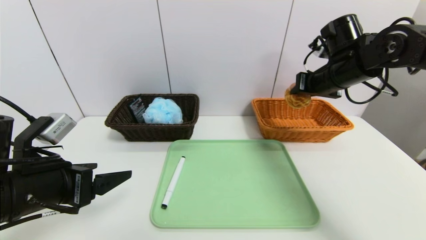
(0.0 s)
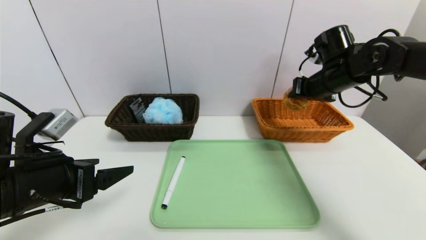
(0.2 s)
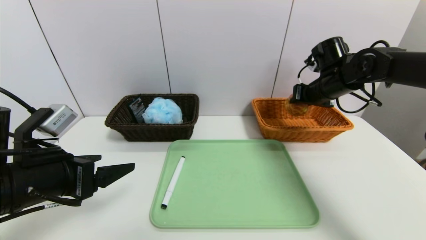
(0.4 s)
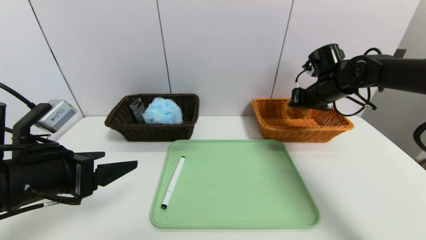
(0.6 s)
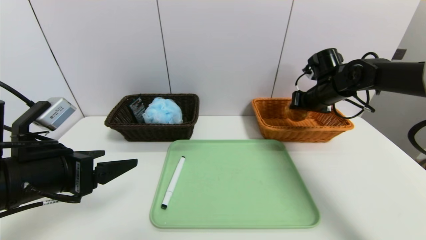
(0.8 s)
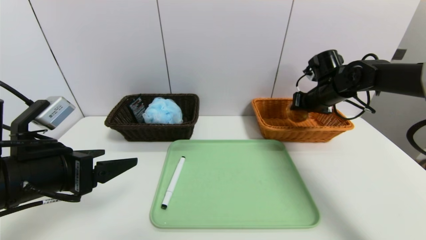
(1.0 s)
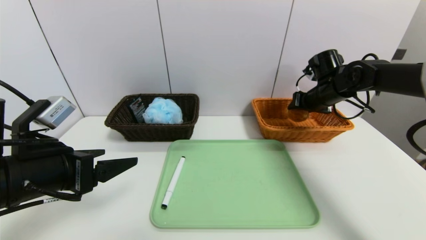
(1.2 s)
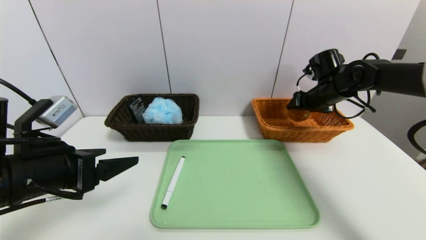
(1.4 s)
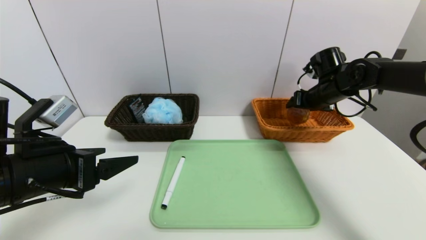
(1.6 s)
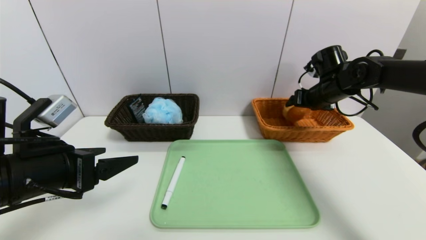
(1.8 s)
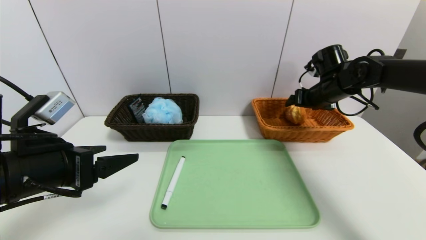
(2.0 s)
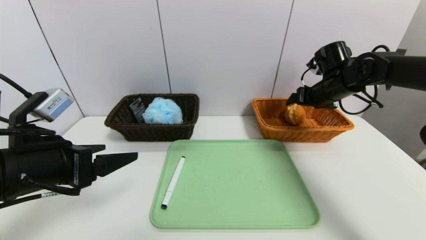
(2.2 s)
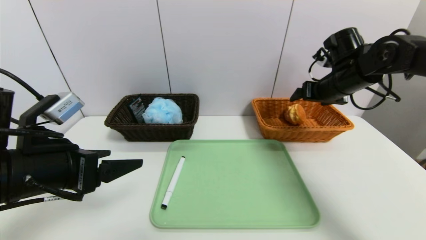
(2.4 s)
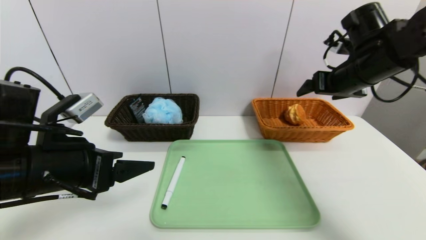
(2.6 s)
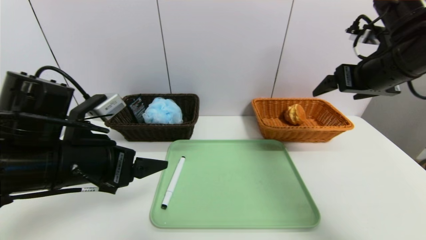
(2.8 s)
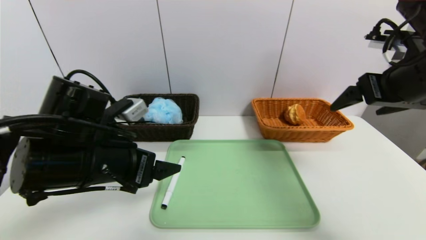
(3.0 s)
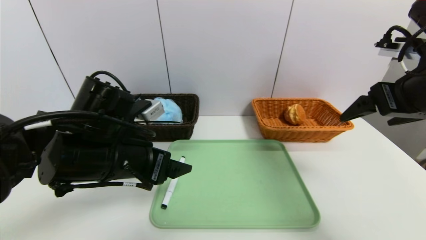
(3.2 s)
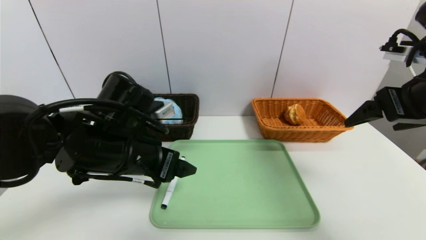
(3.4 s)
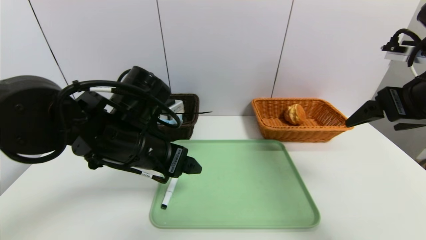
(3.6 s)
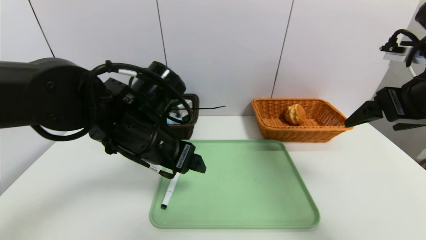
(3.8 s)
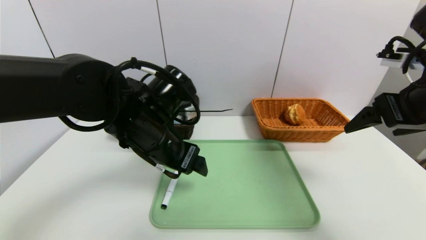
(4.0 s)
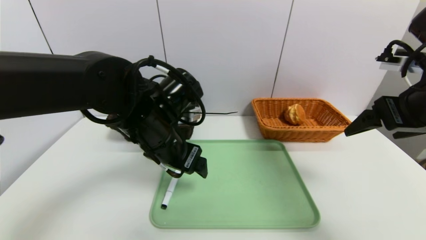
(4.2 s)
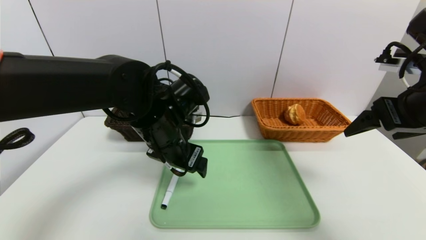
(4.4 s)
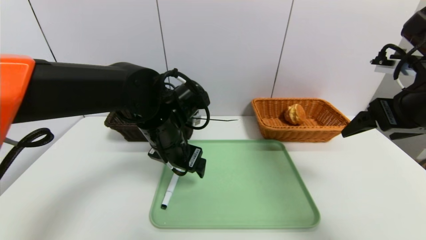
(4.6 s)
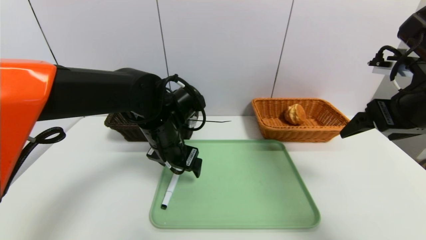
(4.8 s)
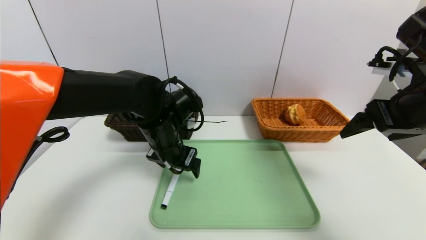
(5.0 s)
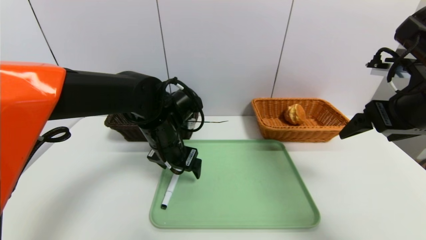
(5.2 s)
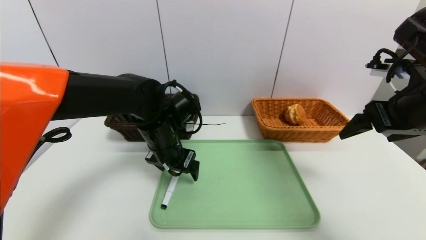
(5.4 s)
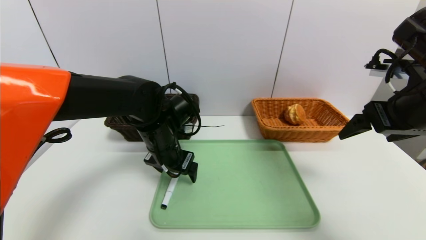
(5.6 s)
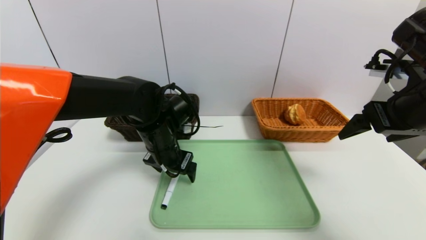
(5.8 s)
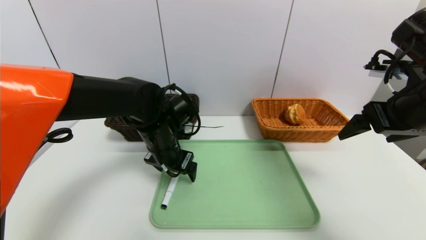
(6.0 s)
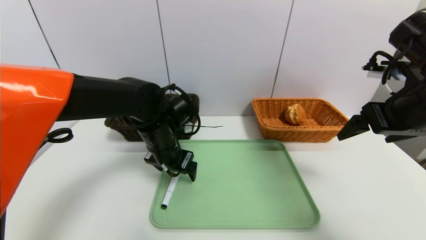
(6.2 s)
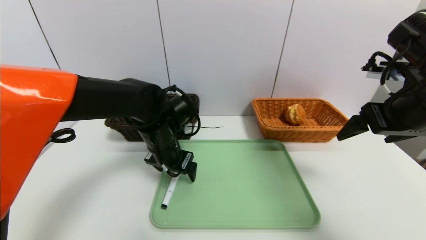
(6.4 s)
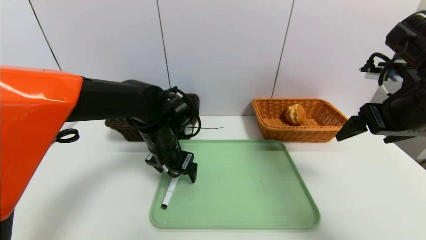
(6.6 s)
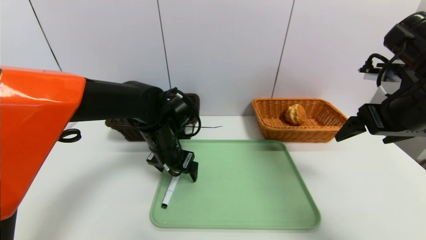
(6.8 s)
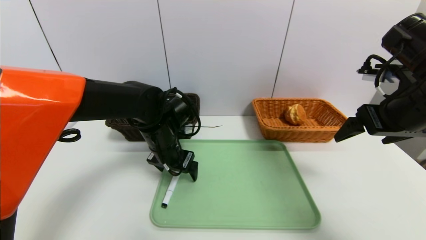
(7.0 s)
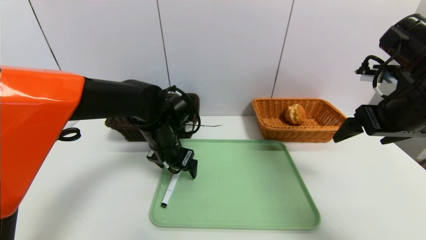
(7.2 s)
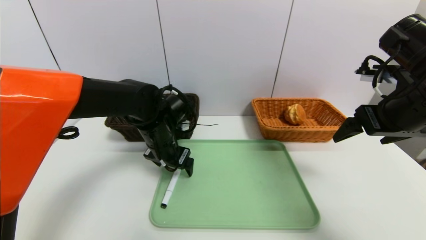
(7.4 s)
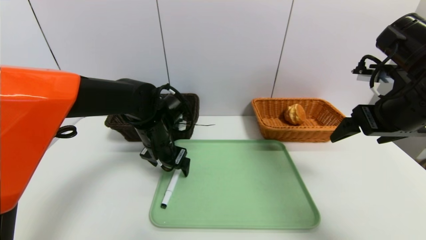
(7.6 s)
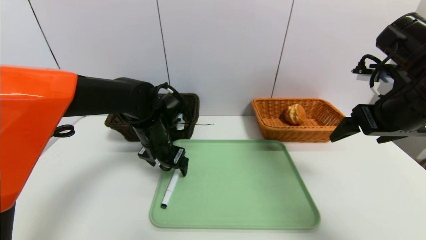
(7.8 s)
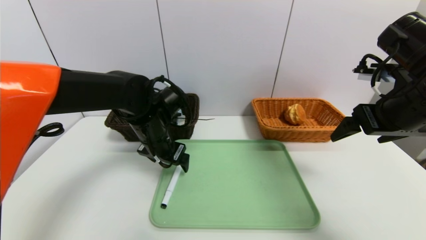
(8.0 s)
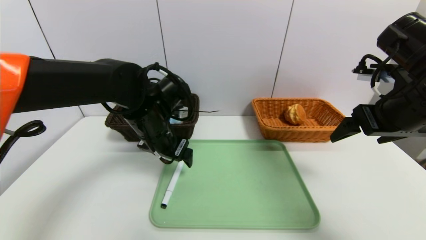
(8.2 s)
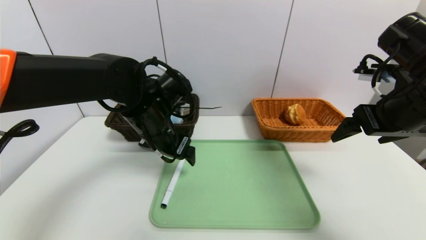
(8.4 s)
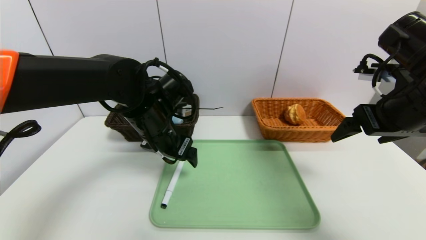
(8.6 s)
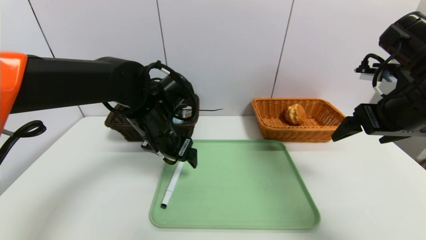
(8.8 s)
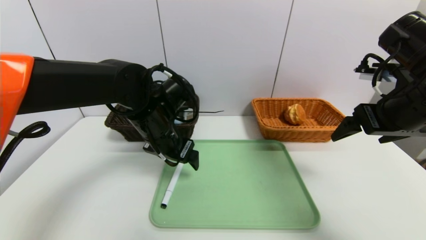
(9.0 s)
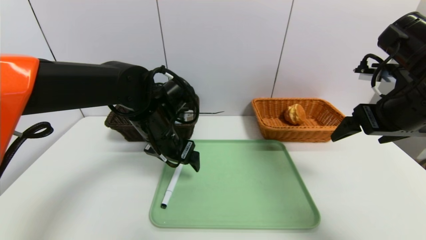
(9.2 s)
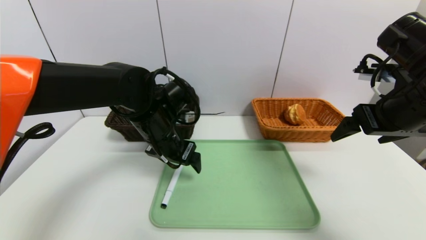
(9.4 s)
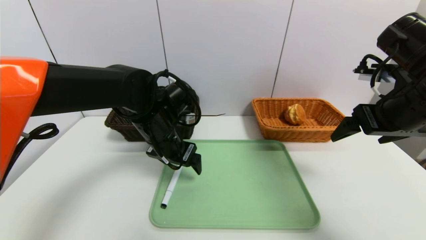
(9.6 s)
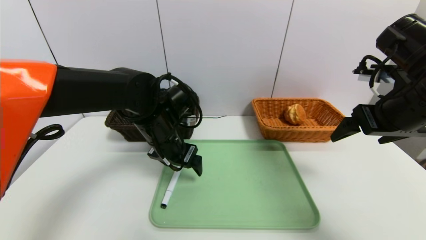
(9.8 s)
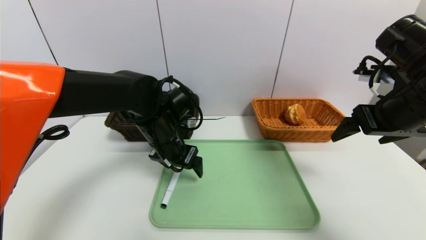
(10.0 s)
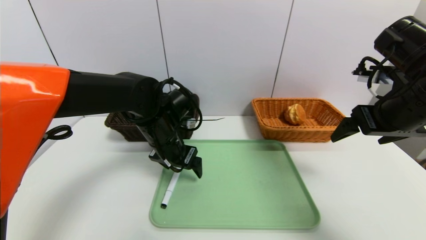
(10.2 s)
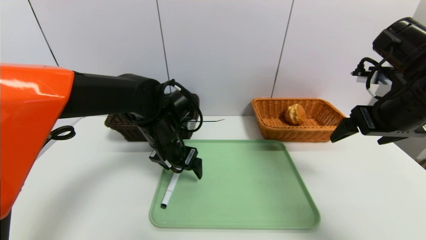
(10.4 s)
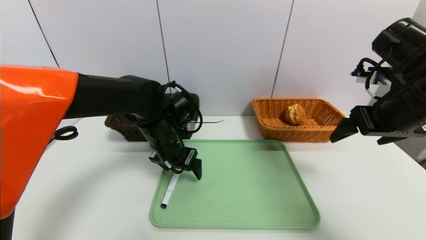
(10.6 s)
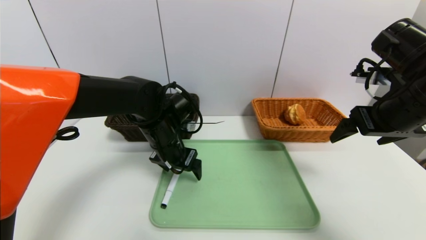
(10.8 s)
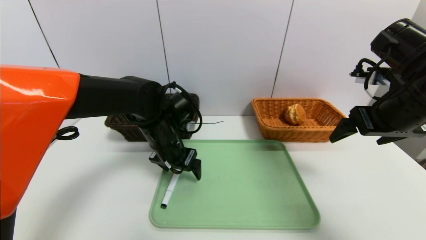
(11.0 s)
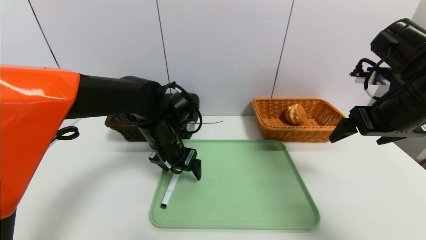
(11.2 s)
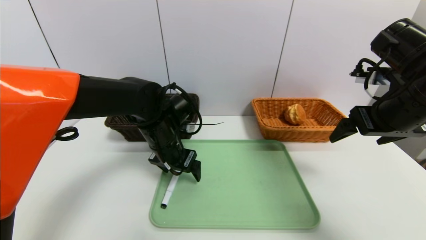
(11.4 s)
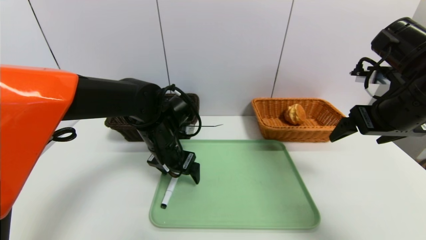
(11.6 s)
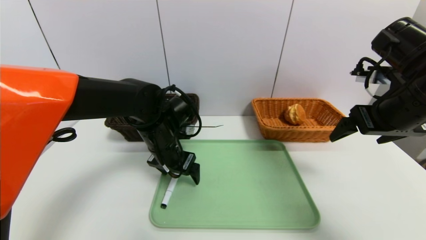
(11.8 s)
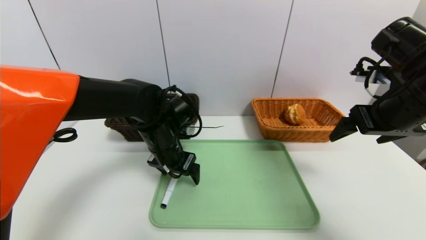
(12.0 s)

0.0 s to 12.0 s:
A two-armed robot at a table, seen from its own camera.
Task of the whole recording: place the food in the right basket with the right gripper, and place the non food items in the left basket with the left gripper.
0.0 to 1.6 s: The right gripper heads downward and forward, covering some 10 cm, and opens up.
1.6 to 3.0 s: The right gripper heads backward and upward, covering about 25 cm; the left gripper travels to the right by approximately 5 cm.
3.0 to 4.4 s: The left gripper shifts approximately 10 cm to the right and forward.
4.4 to 6.0 s: The left gripper ends up roughly 5 cm from where it was.
6.0 to 7.6 s: The grippers stay close to where they were, moving slightly.
7.6 to 9.0 s: The left gripper moves about 5 cm.
9.0 to 10.4 s: There are only small adjustments of the grippers.
10.4 to 12.0 s: The two grippers keep their place.

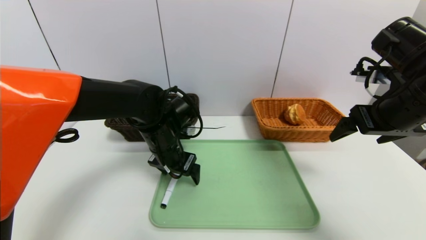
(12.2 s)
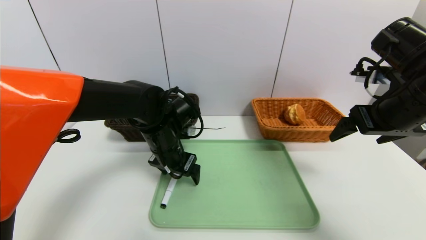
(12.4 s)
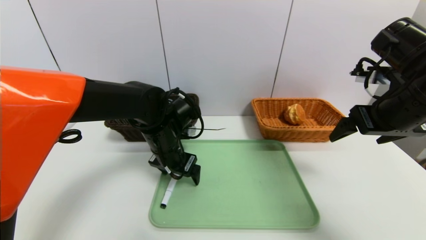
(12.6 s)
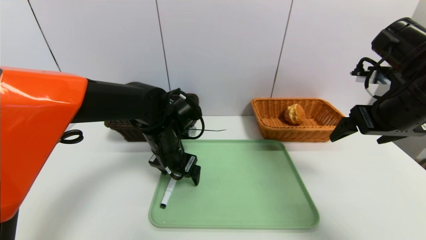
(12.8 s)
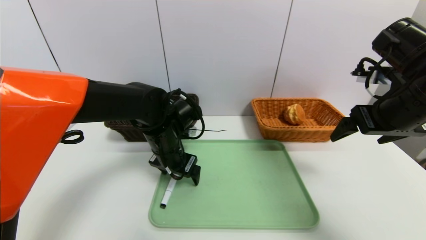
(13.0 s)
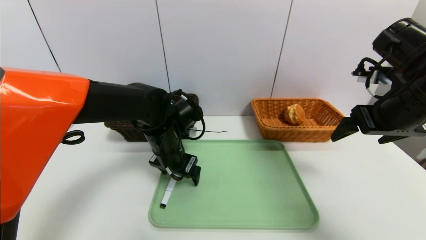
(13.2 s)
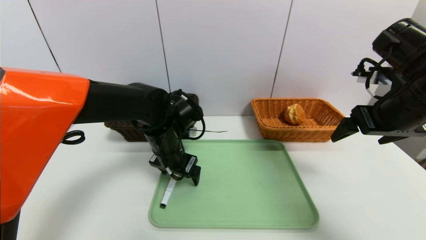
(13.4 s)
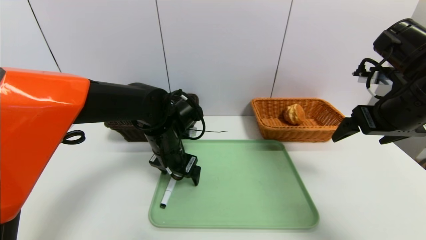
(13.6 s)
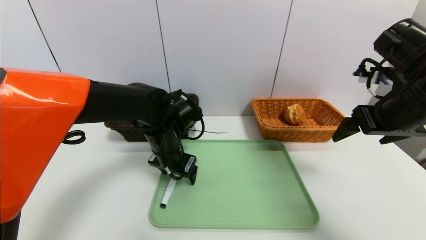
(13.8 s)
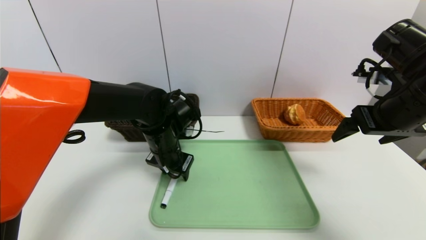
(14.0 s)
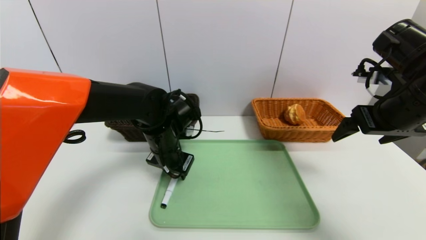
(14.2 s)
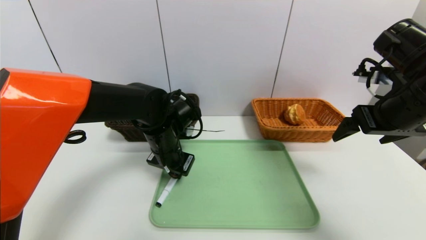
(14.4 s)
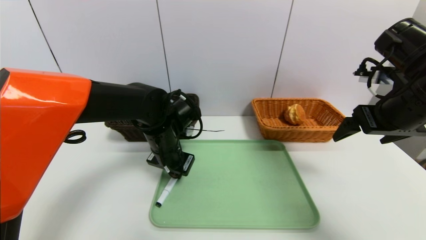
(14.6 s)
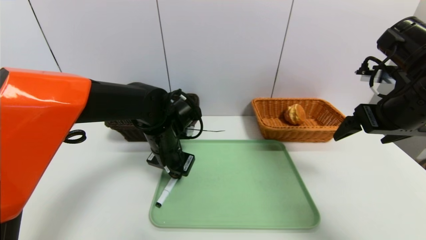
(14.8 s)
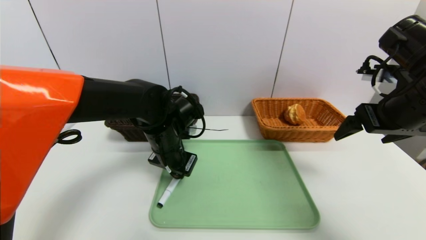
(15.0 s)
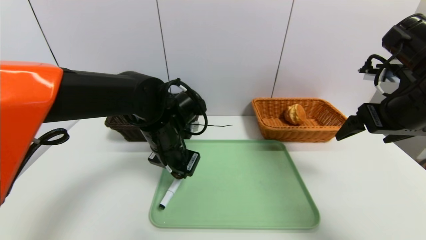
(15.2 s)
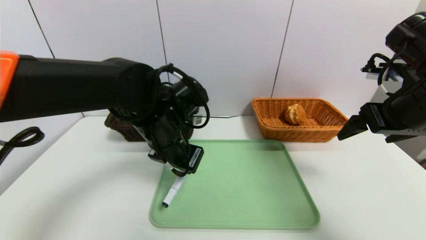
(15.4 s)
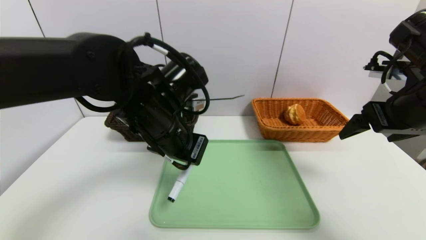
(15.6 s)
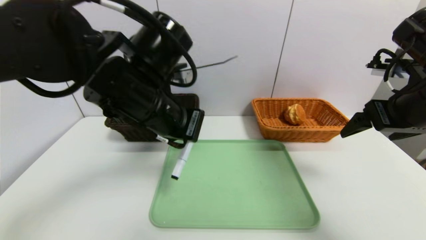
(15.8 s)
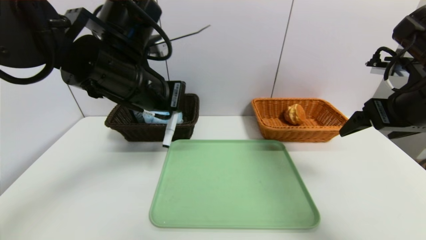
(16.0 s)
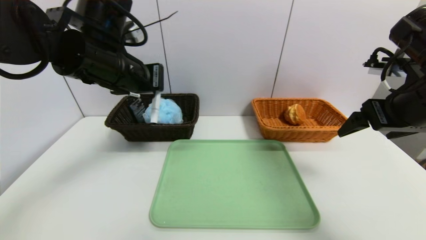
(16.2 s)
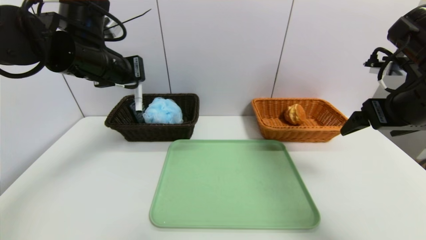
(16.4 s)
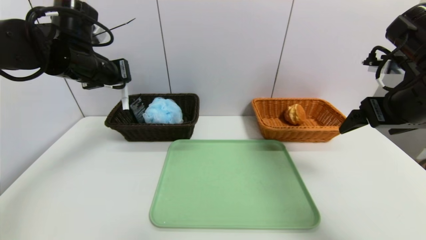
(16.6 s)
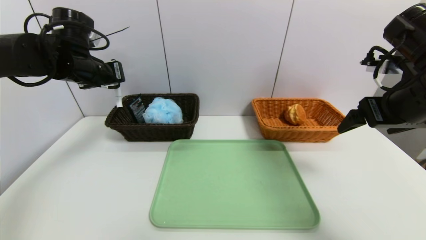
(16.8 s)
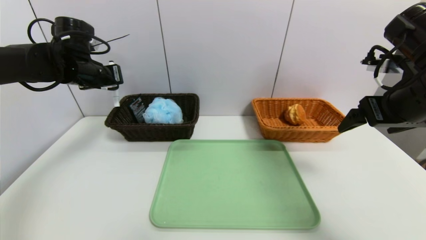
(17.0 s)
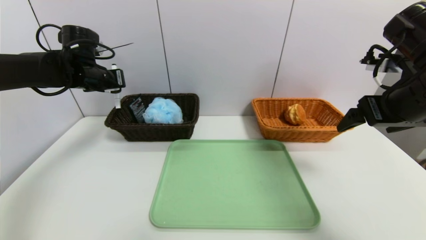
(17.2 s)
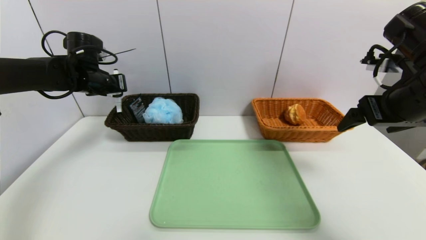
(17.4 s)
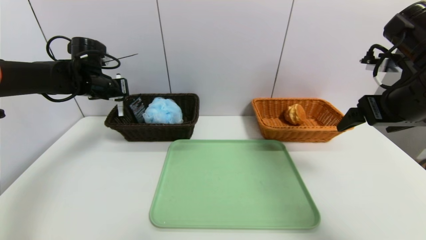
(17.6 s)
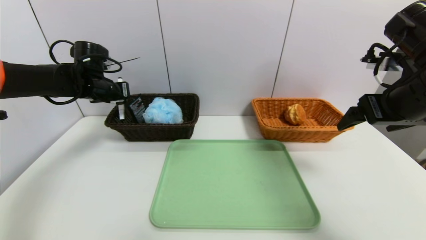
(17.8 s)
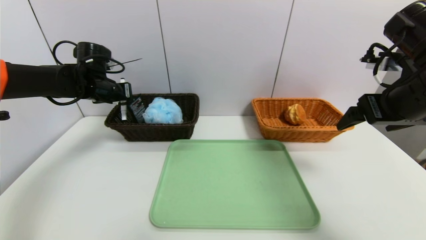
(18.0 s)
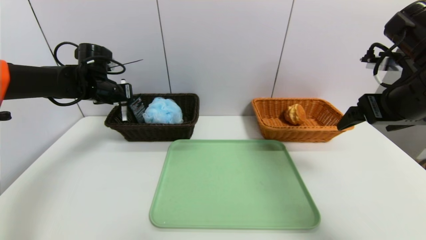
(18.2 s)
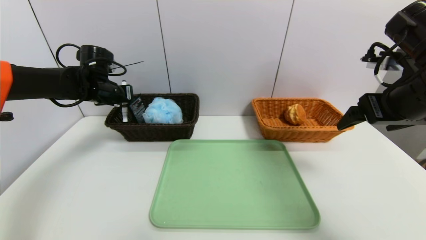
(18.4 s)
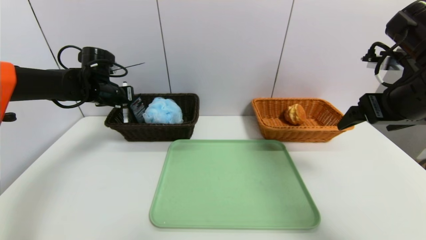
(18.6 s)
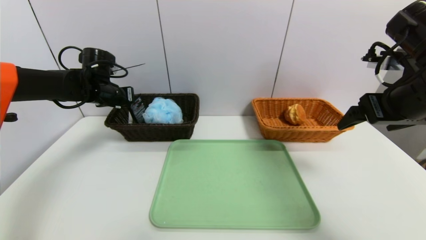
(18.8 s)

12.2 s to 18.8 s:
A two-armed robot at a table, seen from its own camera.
Task of the whole recording: place the food in the right basket with the right gripper, and place the non food items in the left basket with the left gripper.
12.2 to 13.8 s: Both grippers stay about where they are.
13.8 to 15.4 s: The left gripper moves upward, about 5 cm, and closes its fingers.
15.4 to 17.2 s: The left gripper heads to the left and forward, covering approximately 25 cm.
17.2 to 18.8 s: There are only small adjustments of the grippers.
